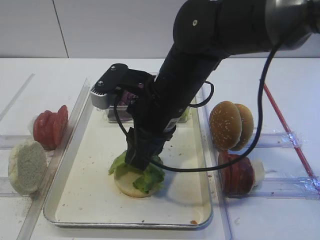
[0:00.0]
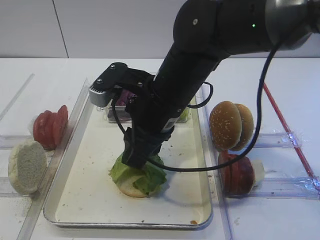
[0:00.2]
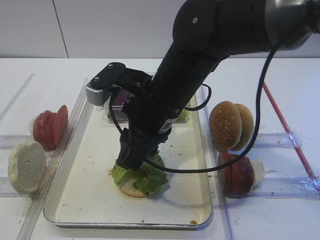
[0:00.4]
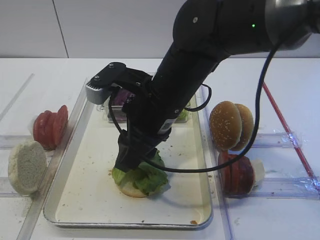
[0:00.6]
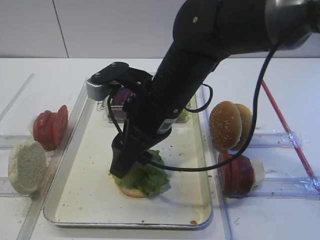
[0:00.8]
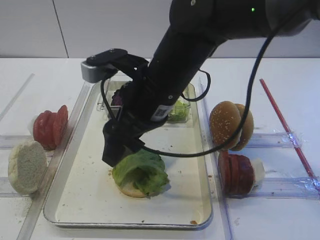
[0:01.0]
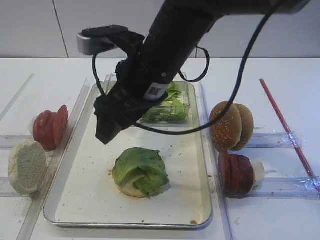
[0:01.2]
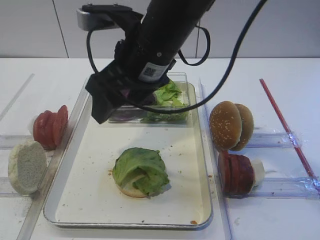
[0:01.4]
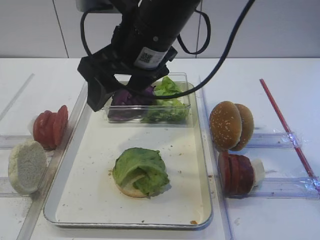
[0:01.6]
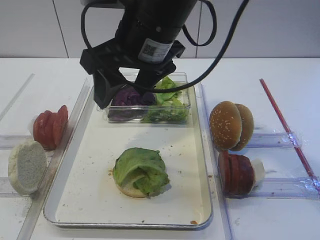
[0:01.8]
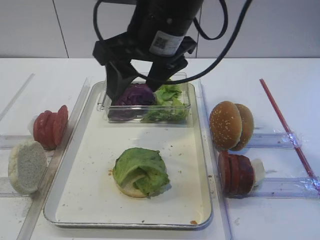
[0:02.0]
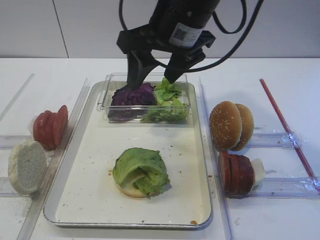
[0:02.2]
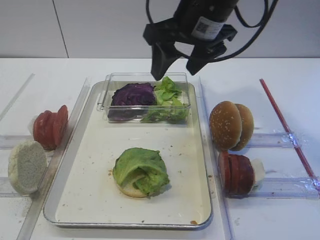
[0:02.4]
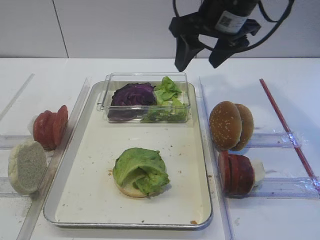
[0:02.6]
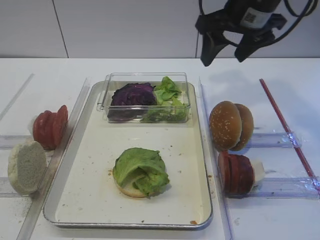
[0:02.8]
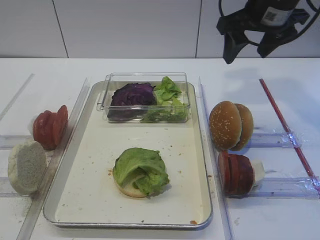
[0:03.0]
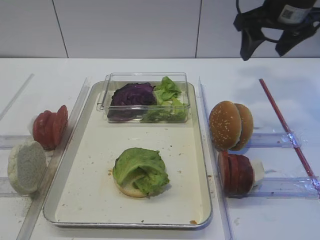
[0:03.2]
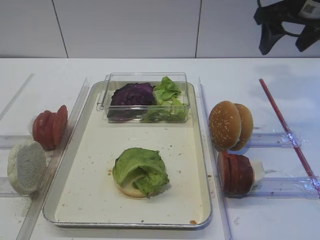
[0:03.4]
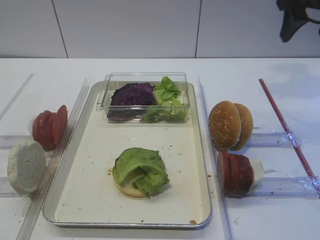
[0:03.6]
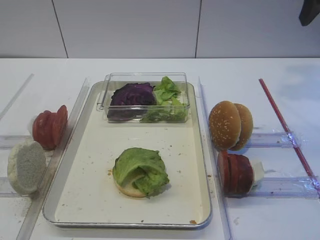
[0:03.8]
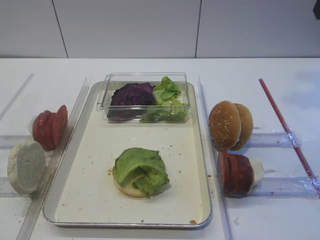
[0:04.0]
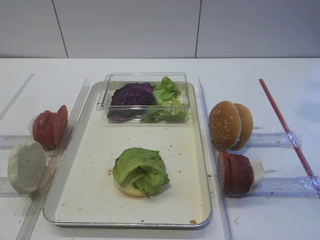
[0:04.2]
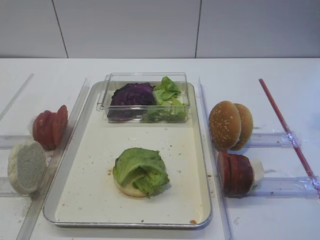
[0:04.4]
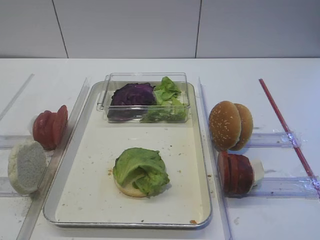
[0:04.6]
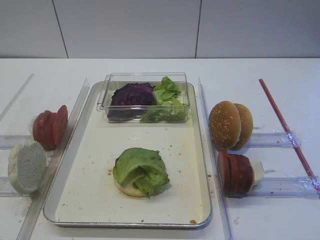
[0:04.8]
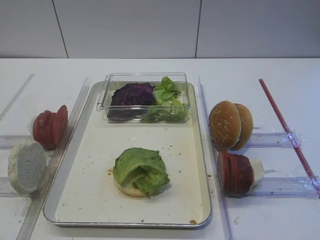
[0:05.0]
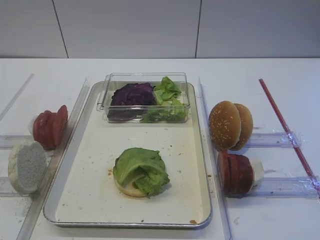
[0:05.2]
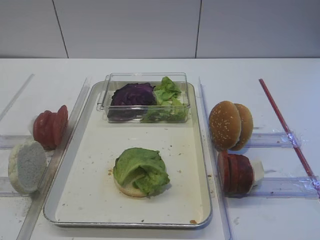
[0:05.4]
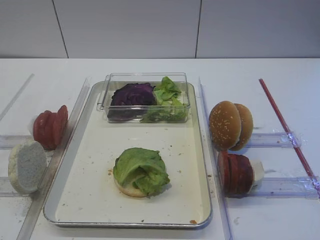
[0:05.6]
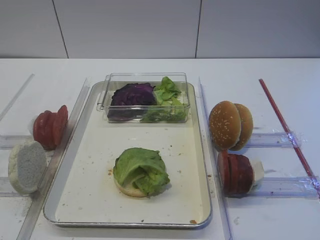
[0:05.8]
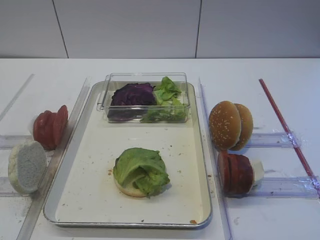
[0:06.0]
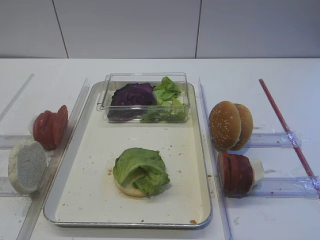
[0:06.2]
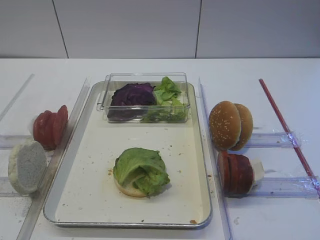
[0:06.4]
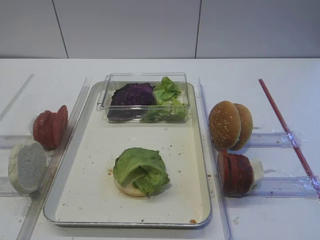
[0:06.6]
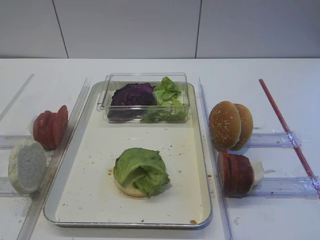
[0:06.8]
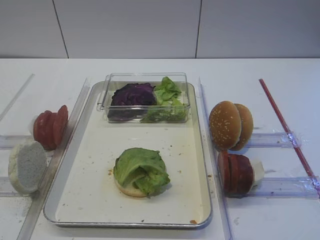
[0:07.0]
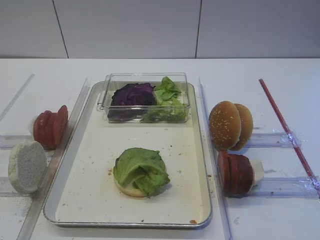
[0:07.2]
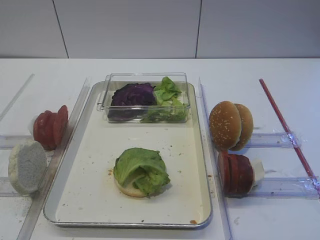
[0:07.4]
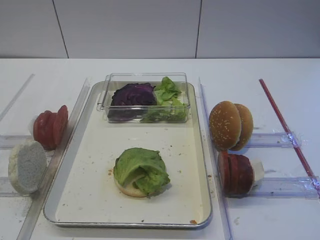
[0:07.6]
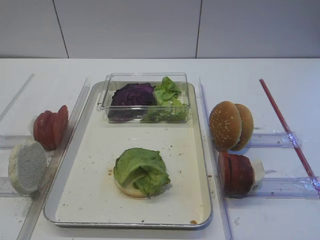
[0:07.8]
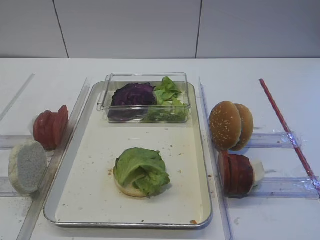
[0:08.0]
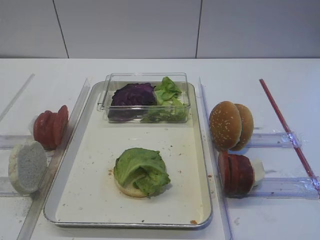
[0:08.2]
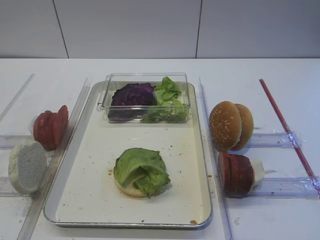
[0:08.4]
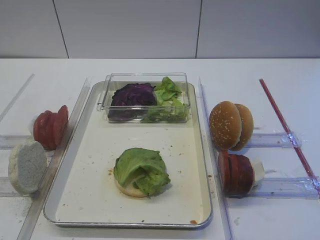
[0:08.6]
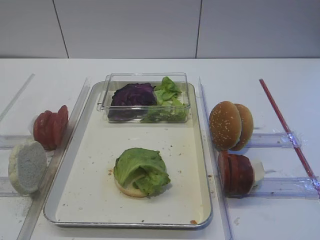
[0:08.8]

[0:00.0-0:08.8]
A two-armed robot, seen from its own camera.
0:00.0 to 0:01.4: The right gripper moves upward, some 5 cm, and opens up.
0:01.4 to 0:03.0: The right gripper is displaced to the right and forward by approximately 20 cm.
0:03.0 to 0:04.4: The right gripper heads backward, upward and to the right, covering approximately 25 cm.
0:07.4 to 0:08.8: The two grippers keep their place.

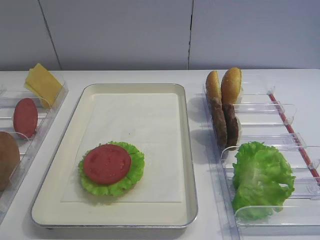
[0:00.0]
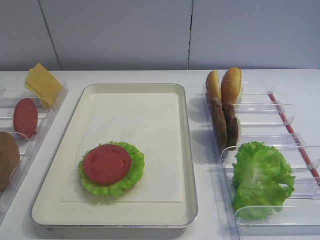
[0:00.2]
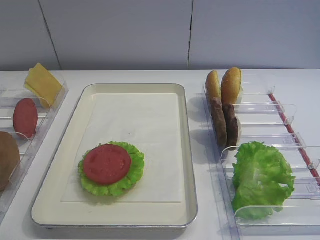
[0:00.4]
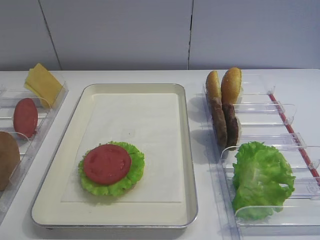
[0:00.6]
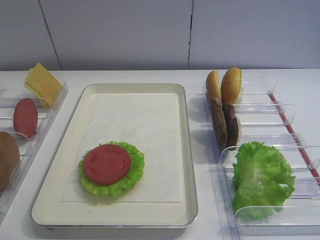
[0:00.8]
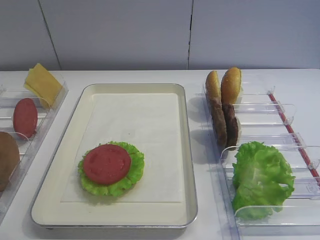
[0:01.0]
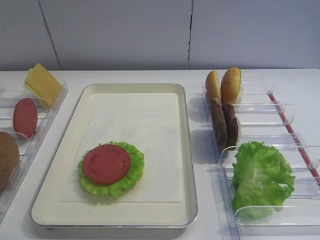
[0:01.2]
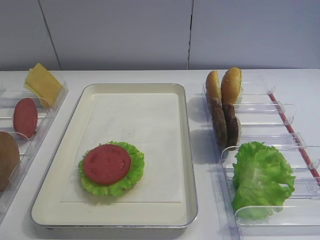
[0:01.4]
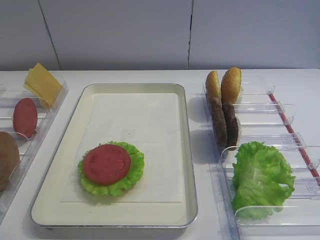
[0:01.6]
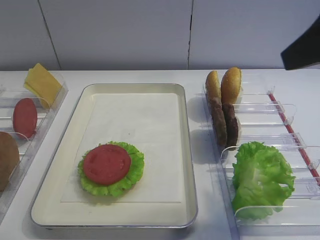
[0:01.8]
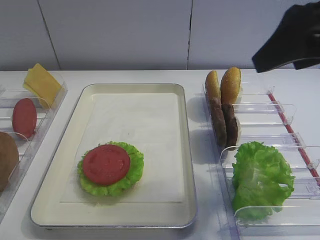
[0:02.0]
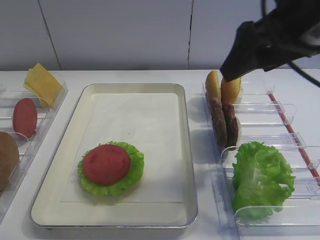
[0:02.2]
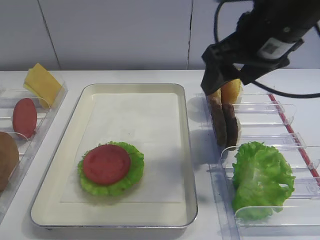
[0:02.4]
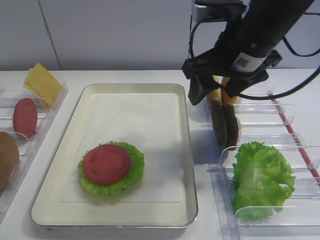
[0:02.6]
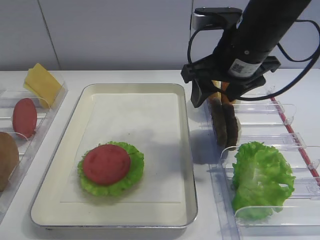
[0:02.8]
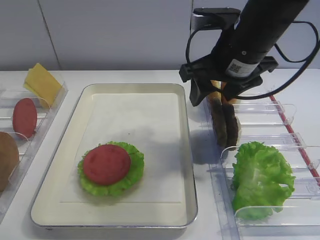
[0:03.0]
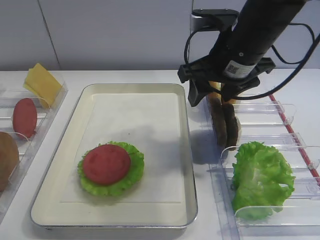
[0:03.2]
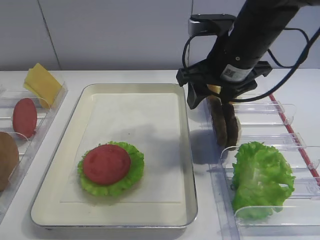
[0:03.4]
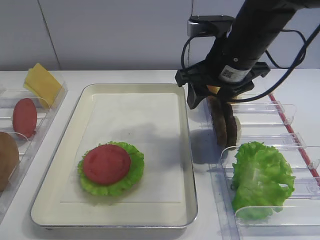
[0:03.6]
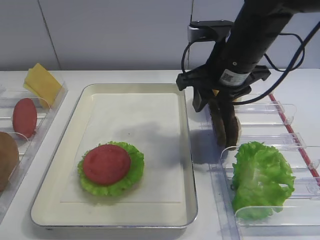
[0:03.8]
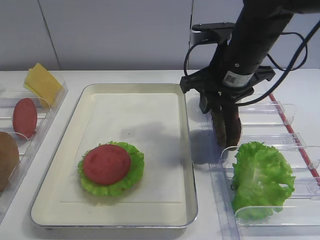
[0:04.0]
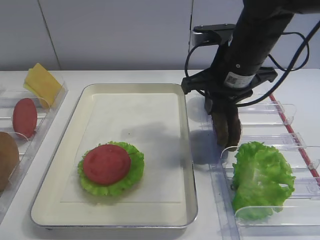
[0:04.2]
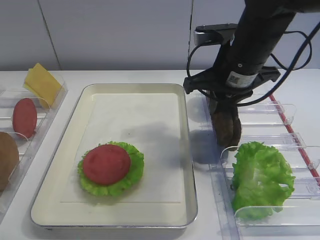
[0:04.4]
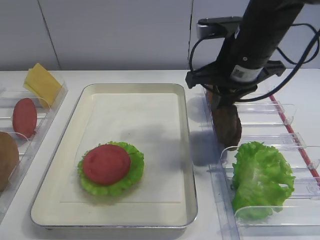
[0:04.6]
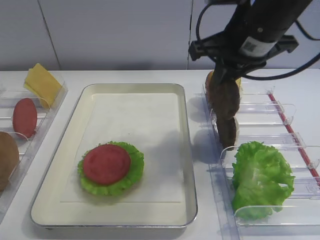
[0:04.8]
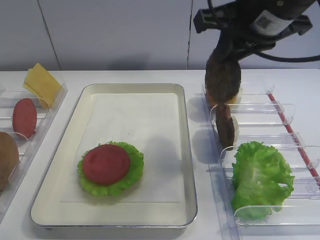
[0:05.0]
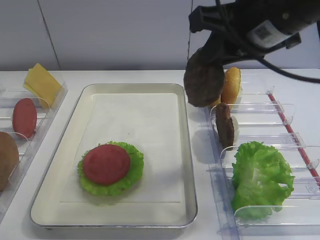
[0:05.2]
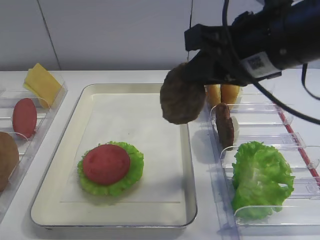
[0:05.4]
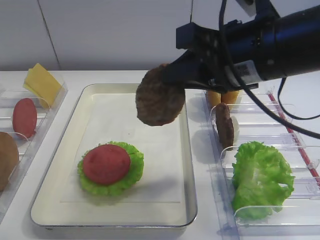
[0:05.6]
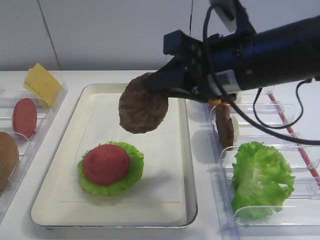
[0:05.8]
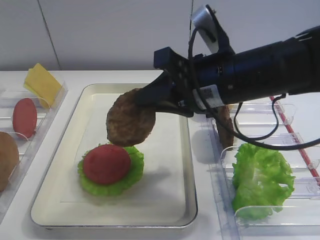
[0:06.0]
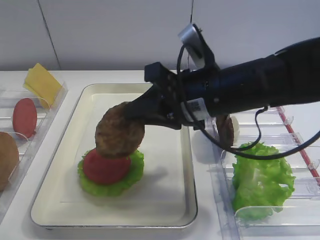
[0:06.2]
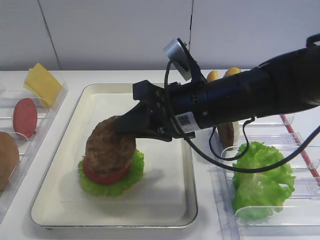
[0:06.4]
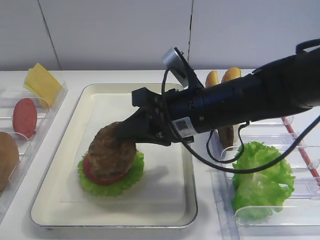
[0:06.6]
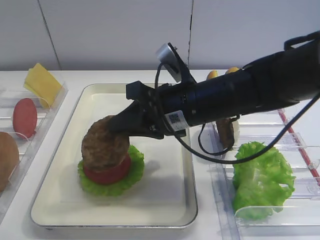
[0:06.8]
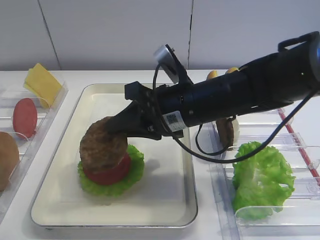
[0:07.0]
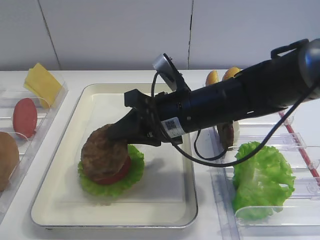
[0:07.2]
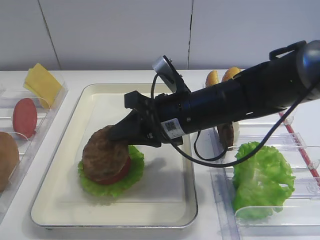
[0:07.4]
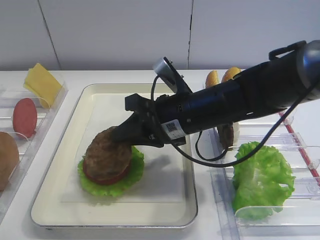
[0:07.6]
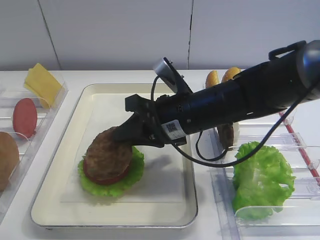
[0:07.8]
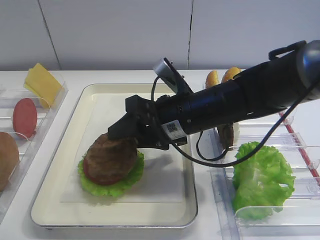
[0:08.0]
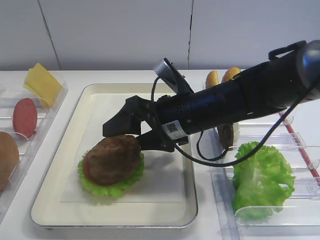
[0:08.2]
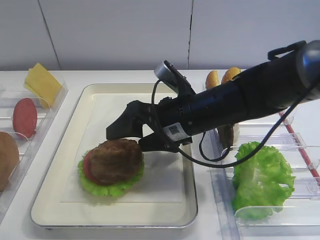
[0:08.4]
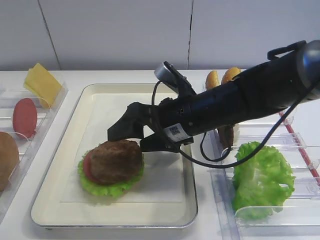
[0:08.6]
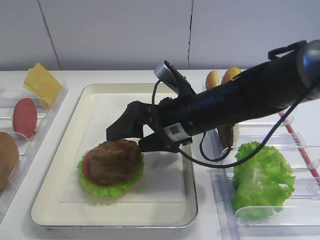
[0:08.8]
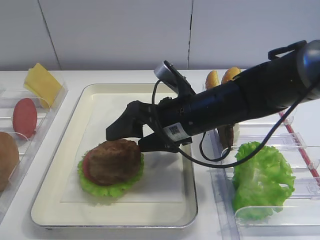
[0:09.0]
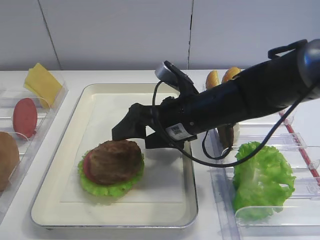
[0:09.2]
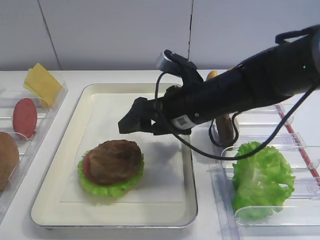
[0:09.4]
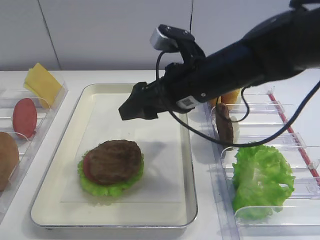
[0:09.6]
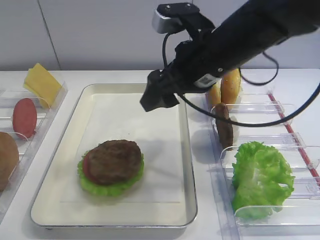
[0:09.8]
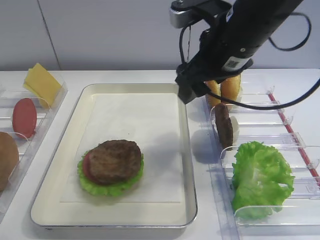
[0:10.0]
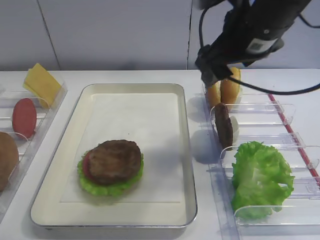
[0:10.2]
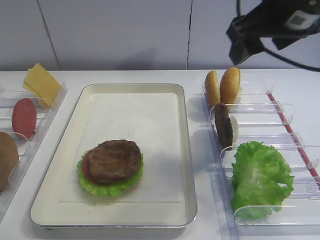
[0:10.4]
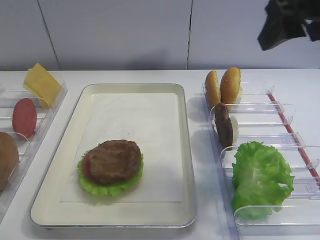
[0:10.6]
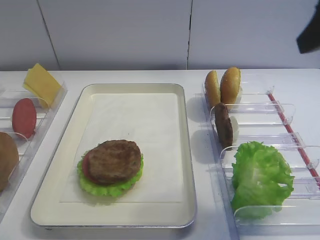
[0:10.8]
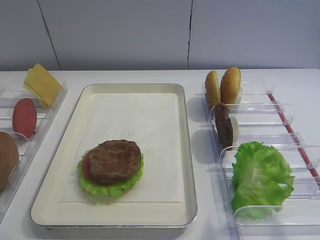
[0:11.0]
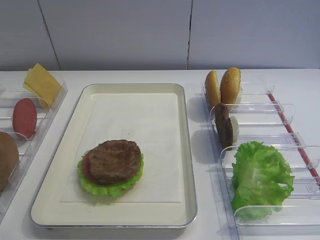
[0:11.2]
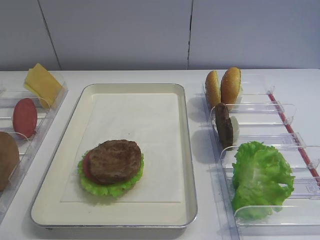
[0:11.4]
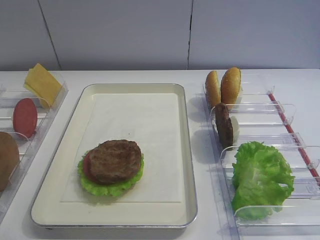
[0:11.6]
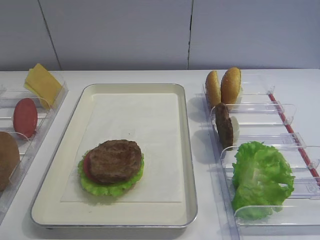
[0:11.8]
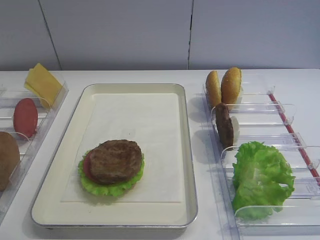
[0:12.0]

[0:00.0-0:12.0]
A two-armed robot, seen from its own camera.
Step, 0:00.0 to 0:04.8: Pick up the cutlet with the right gripper.
Step, 0:05.0 to 0:09.4: Place the cutlet on the tomato slice with the right gripper.
0:01.6 to 0:03.0: The right gripper goes about 25 cm forward, to the left and downward.
0:03.0 to 0:04.4: The right gripper closes its fingers.
0:04.4 to 0:06.0: The right gripper moves backward, approximately 5 cm.
0:06.0 to 0:07.6: The right gripper moves downward, approximately 5 cm.
0:07.6 to 0:09.0: The right gripper opens up.
0:09.0 to 0:10.4: The right gripper travels upward and to the right by approximately 20 cm.
0:10.4 to 0:12.0: The right gripper shifts about 30 cm backward.

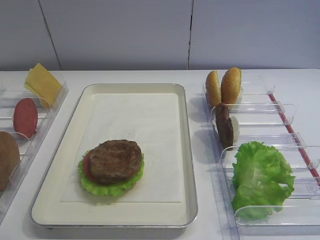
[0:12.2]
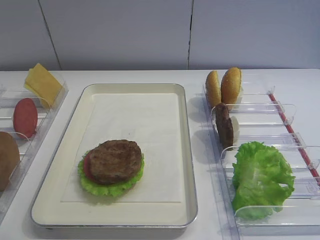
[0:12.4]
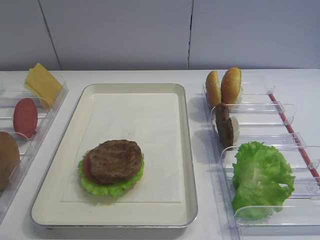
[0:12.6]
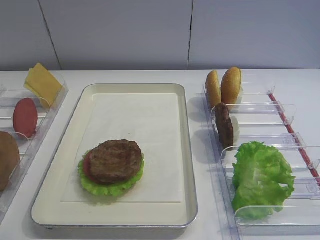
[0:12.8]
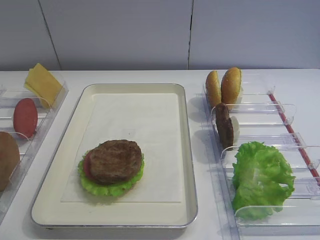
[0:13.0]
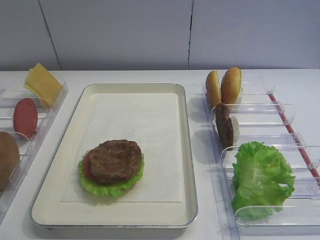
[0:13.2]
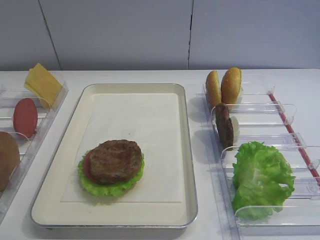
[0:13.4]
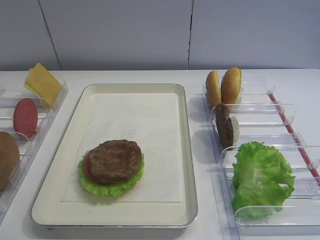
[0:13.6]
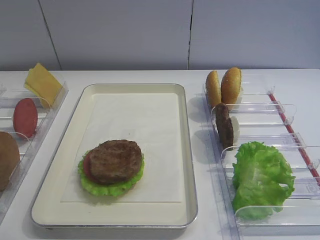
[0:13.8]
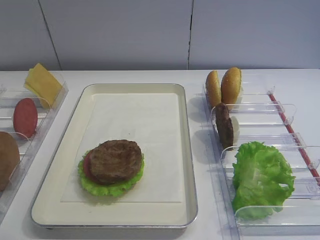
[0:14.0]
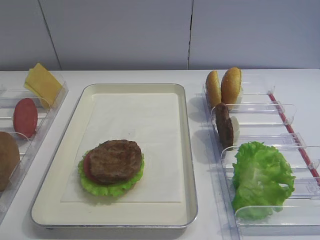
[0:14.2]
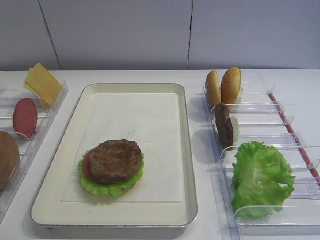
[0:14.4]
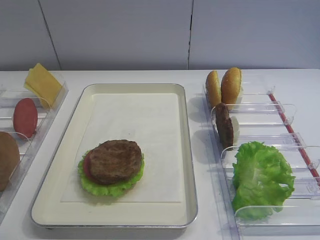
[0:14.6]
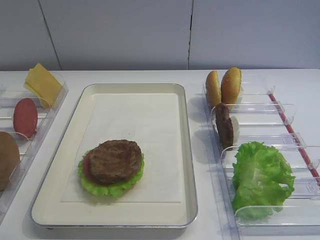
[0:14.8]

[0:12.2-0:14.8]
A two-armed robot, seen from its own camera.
0:12.2 to 0:14.8: Both grippers stay put.
